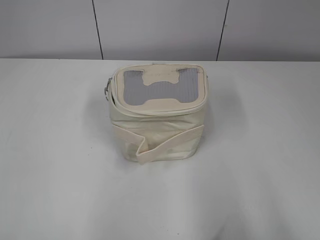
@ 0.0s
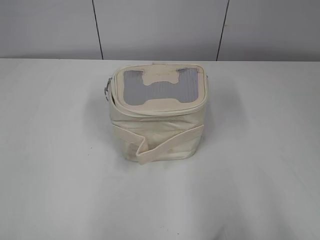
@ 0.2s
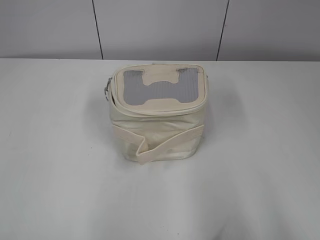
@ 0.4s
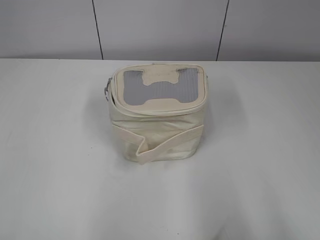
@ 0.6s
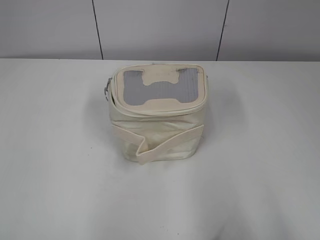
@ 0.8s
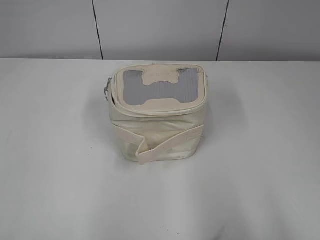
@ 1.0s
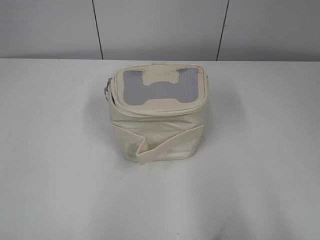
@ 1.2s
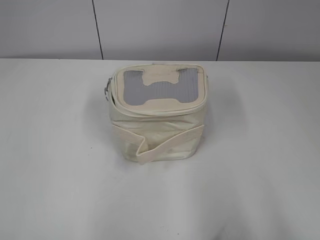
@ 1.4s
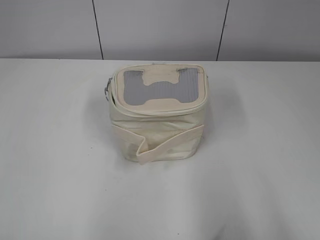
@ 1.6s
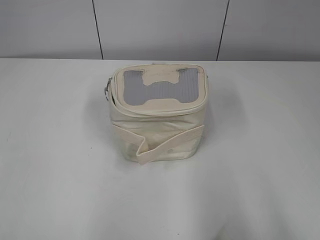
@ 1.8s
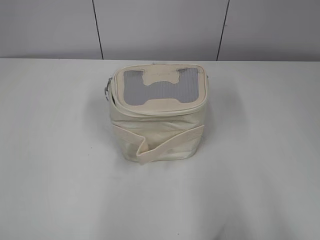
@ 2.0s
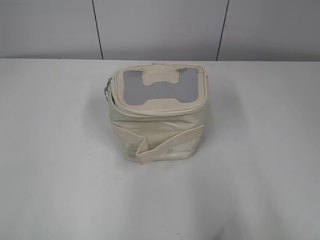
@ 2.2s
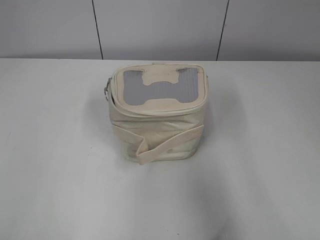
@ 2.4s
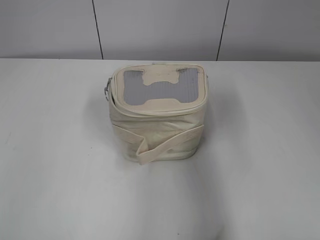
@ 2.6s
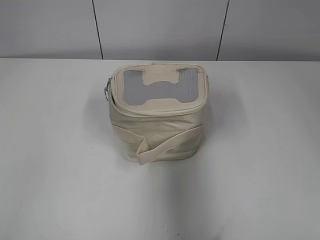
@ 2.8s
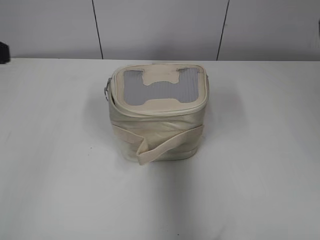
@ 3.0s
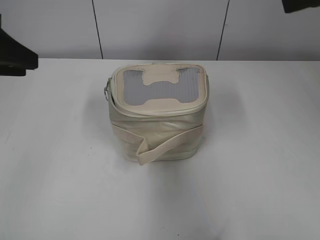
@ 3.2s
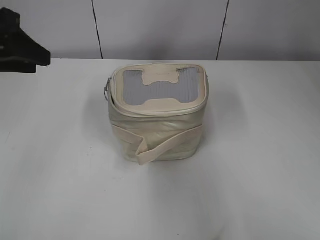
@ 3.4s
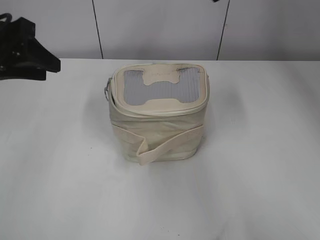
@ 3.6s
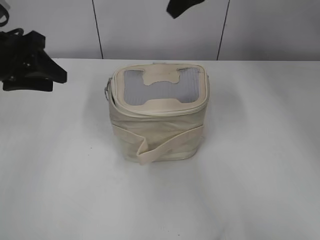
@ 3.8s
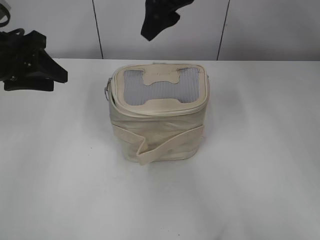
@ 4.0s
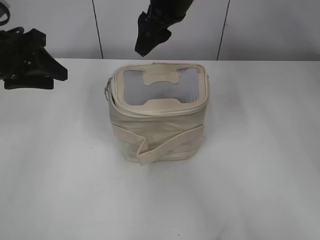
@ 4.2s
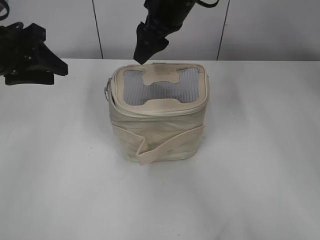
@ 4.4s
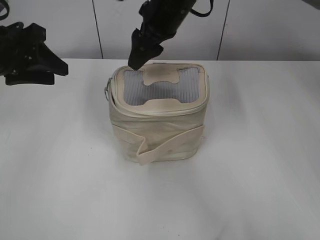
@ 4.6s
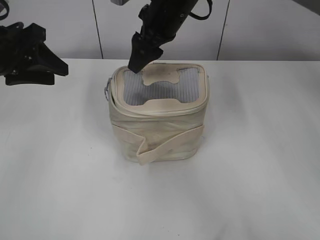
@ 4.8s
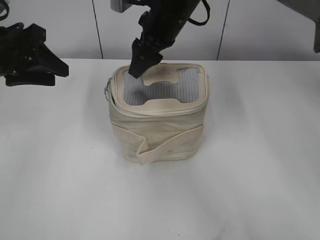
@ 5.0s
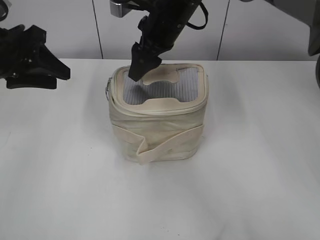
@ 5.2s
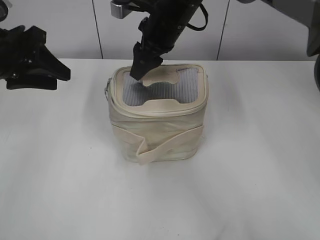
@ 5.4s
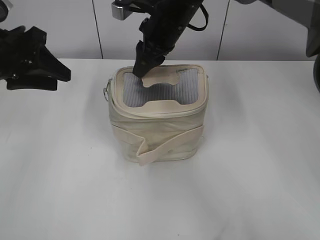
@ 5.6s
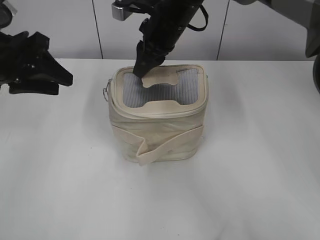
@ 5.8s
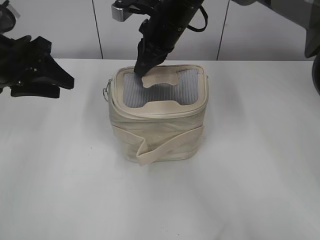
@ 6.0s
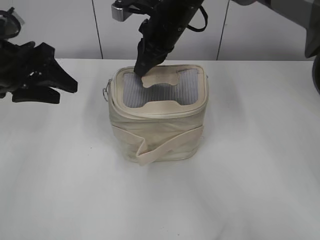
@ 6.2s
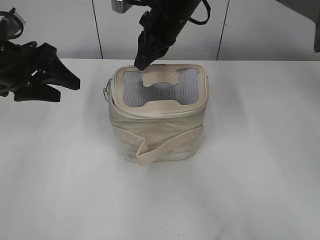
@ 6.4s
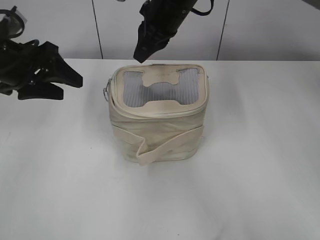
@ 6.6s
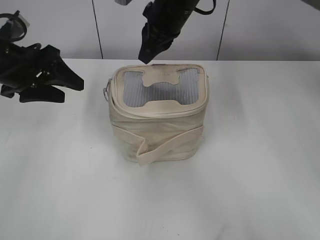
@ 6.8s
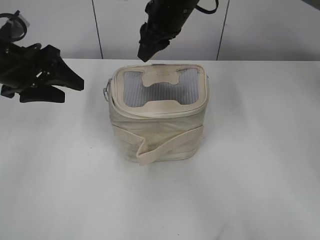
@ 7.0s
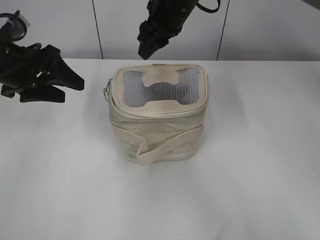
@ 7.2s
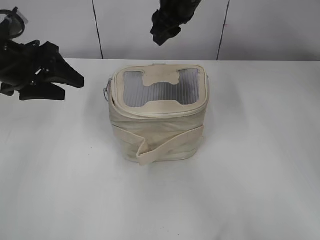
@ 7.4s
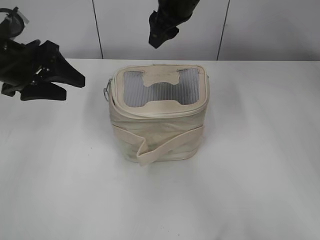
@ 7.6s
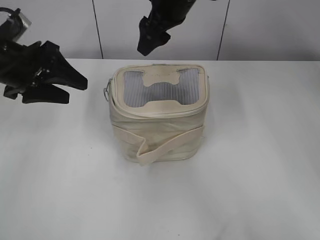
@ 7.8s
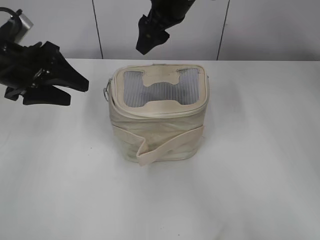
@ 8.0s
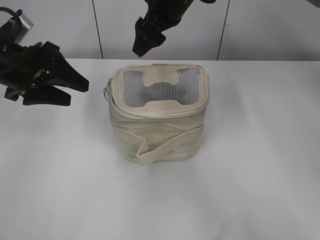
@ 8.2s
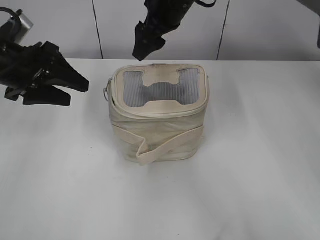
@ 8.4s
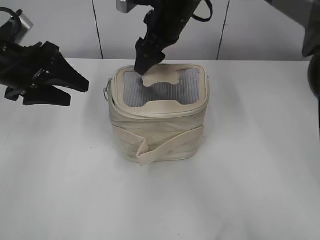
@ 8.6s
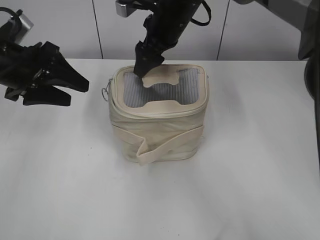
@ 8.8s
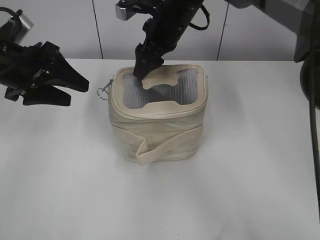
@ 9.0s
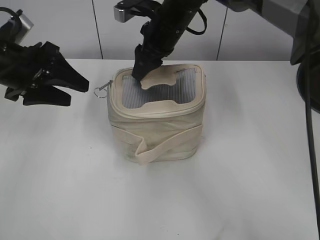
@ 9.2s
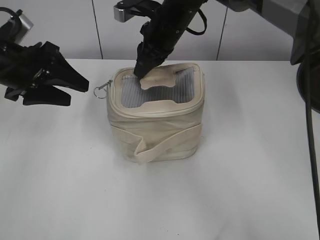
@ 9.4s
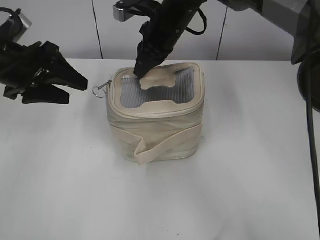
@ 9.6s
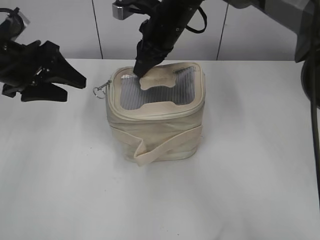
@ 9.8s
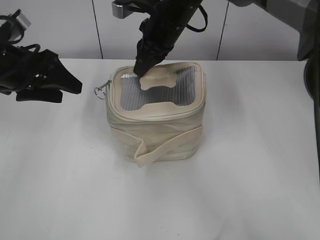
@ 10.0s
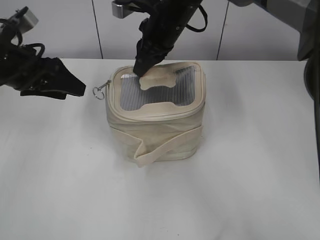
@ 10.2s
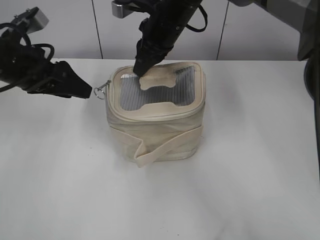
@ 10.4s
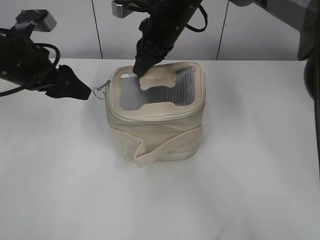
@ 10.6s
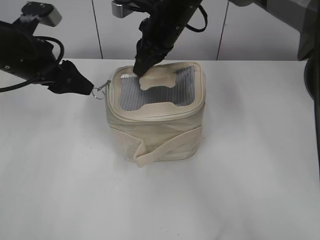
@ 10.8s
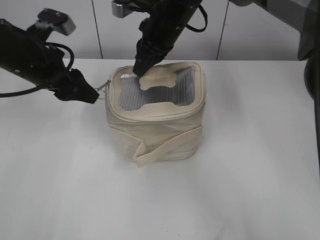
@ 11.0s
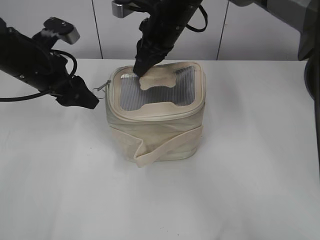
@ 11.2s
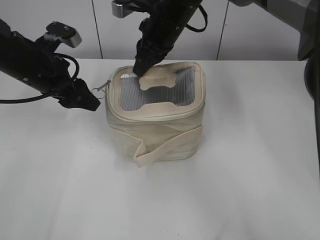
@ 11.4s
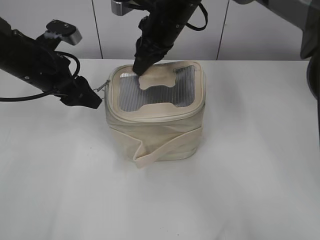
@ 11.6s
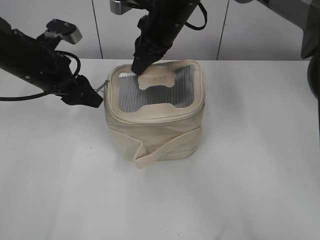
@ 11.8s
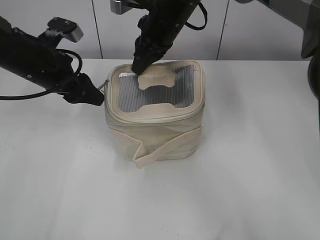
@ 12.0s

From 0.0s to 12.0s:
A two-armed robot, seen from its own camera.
From 1.6s to 3.0s: Both grippers move forward, some 20 cm.
From 3.0s to 4.4s: The left gripper is displaced forward and downward by approximately 15 cm; the right gripper moves to the left and forward, about 30 cm.
From 4.4s to 6.0s: The right gripper closes.
From 6.0s to 7.6s: The right gripper ends up about 5 cm from where it was, and opens.
From 7.6s to 9.0s: The right gripper travels downward by about 5 cm.
From 9.0s to 10.4s: The right gripper closes up.

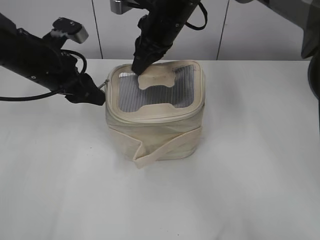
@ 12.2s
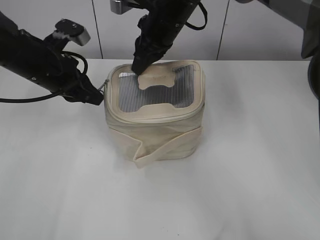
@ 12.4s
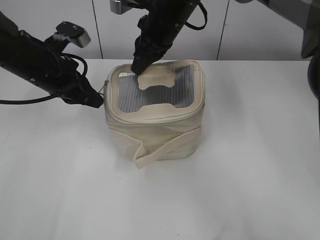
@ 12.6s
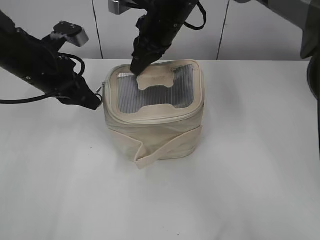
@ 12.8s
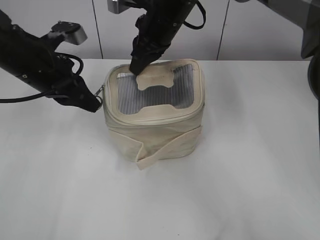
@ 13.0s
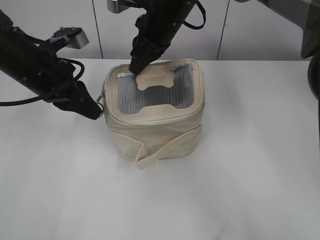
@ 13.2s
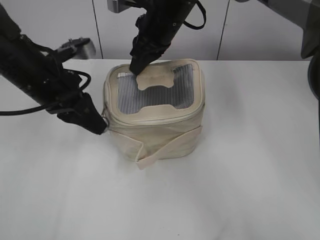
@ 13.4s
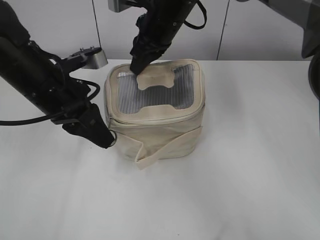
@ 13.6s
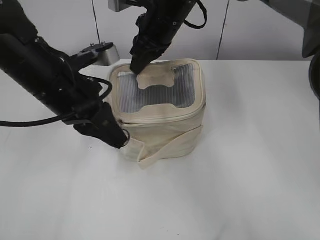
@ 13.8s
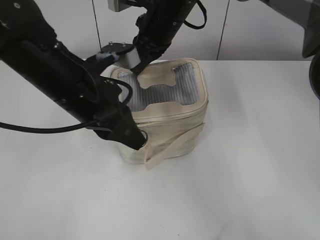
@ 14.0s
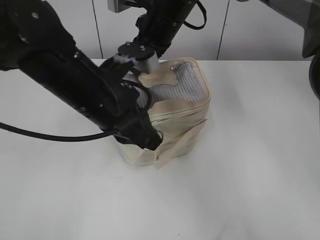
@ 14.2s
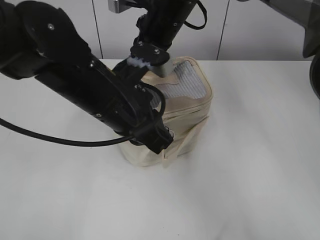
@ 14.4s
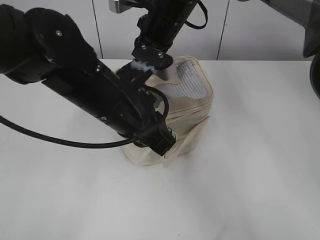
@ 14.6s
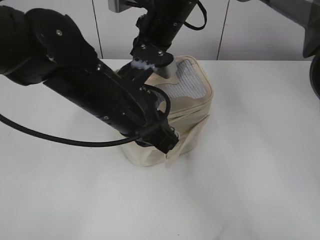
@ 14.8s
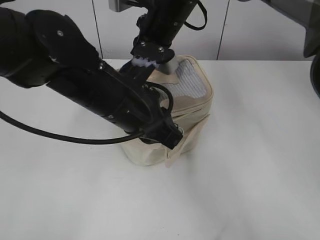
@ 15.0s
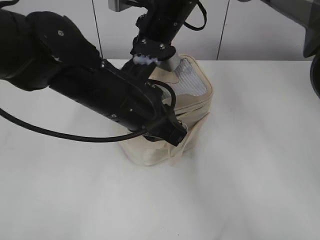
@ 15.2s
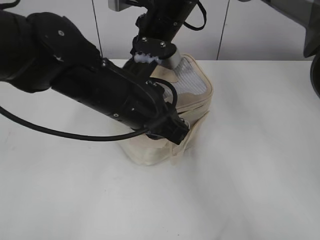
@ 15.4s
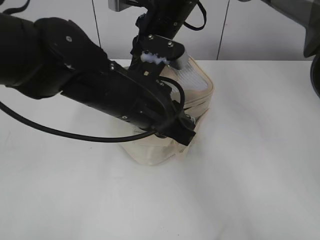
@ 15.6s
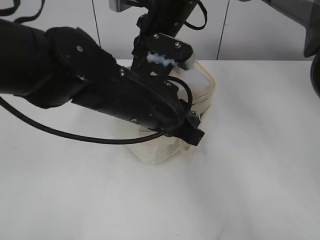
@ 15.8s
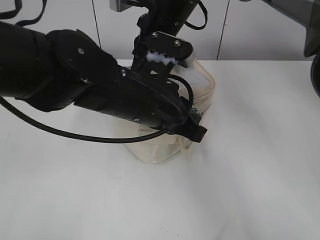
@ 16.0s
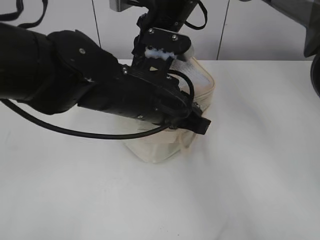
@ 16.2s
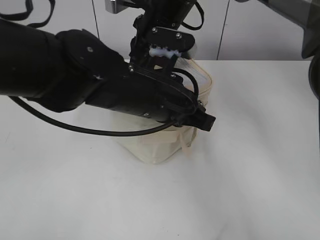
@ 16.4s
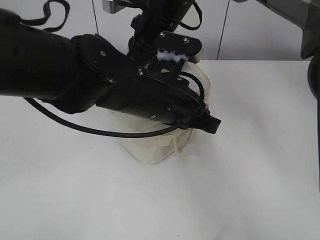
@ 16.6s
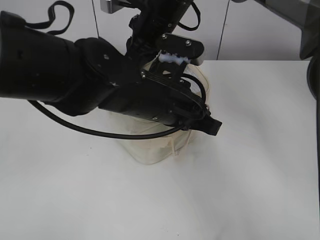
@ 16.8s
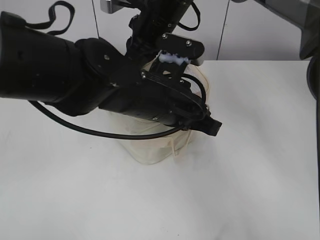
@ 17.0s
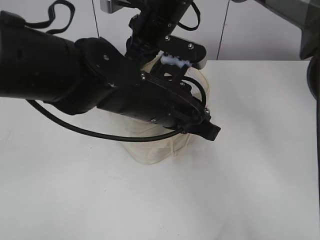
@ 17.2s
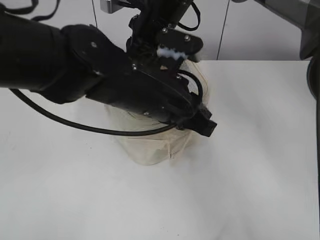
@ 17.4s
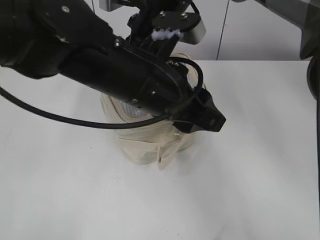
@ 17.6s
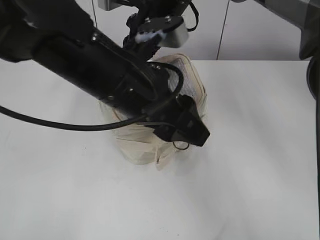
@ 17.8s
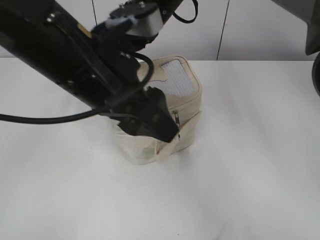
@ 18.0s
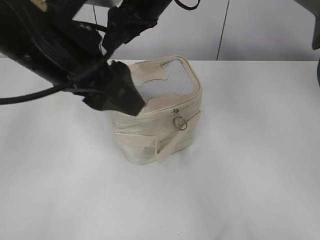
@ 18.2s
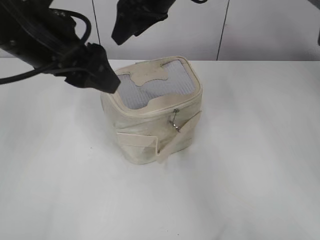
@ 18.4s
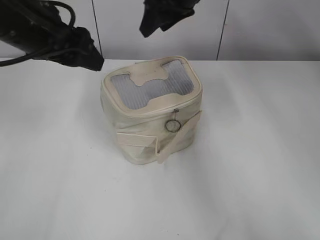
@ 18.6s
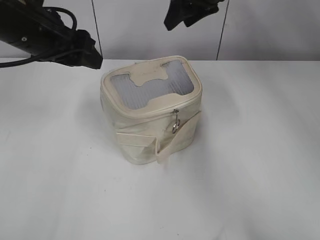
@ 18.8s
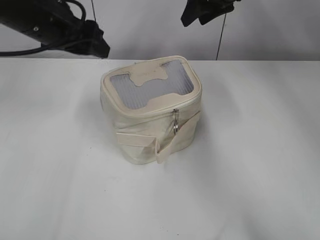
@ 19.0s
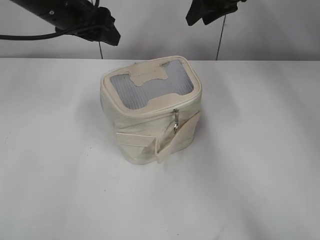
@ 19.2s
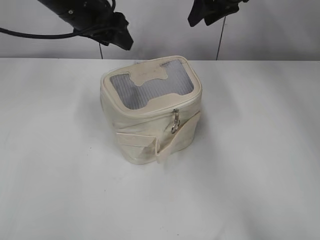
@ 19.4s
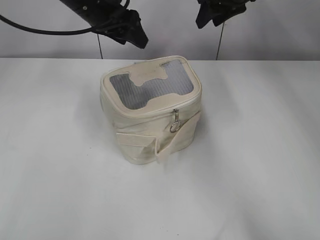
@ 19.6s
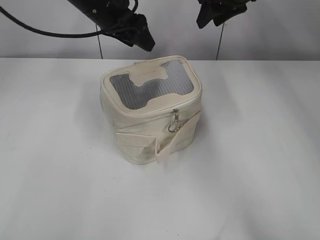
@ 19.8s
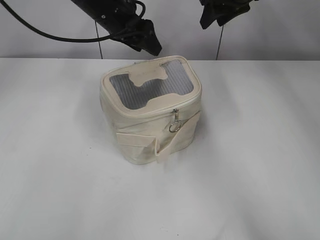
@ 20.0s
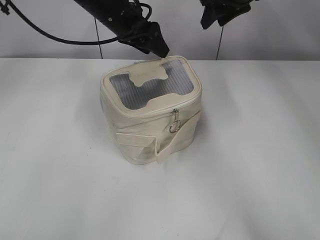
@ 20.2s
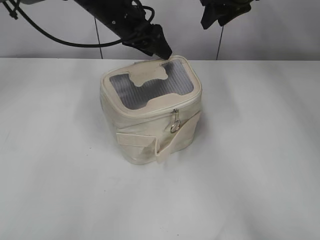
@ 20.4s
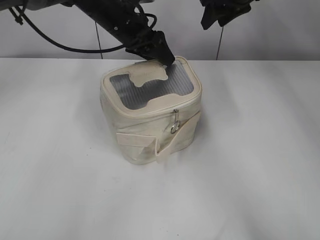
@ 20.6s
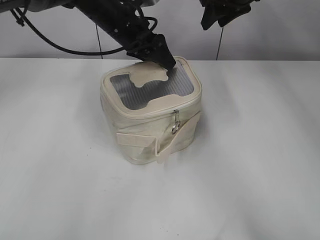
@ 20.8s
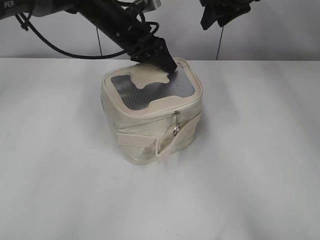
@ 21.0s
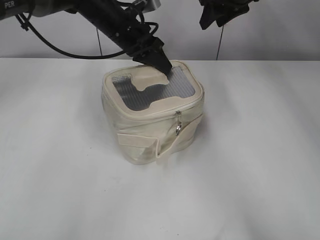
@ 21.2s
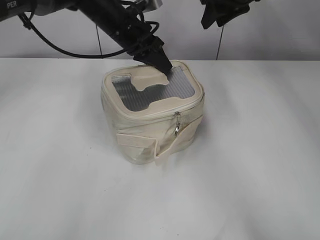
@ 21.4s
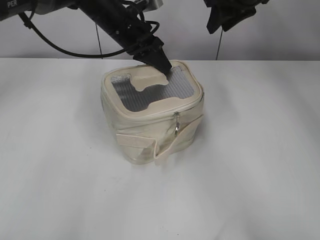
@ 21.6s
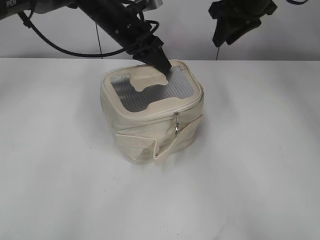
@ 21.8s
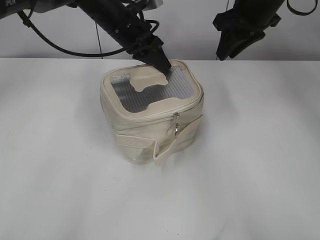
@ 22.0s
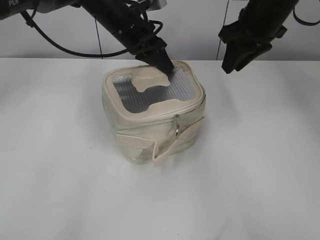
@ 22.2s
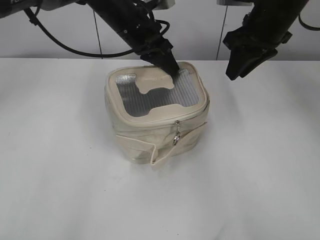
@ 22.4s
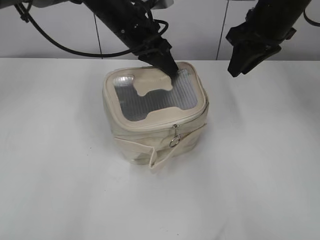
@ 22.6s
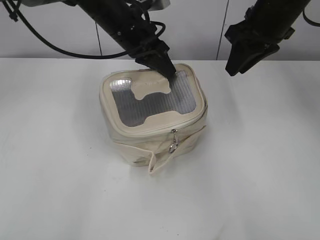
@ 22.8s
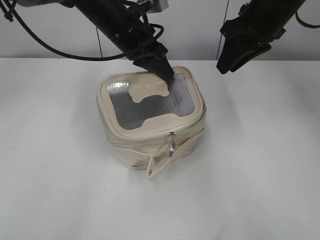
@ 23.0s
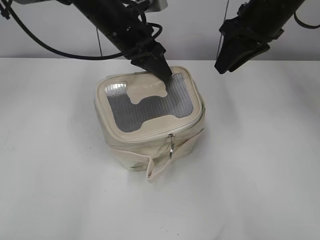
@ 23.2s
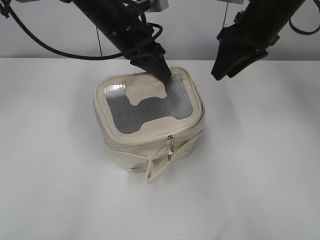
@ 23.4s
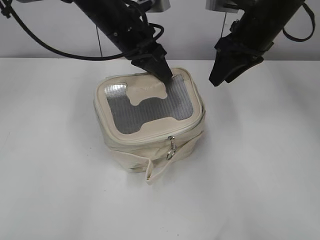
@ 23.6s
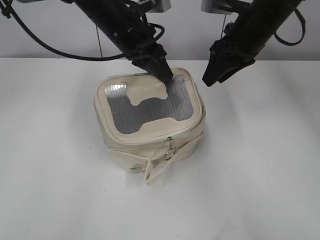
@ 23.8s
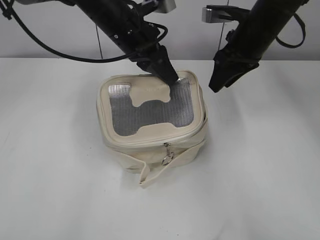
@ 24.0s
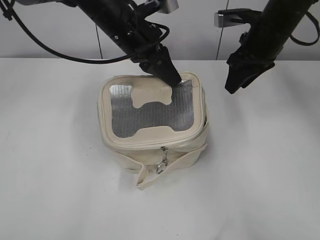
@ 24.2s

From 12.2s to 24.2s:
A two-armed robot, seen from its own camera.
Step, from 12.2s to 17.6s: Zip up the bag with your left hand.
Step, from 17.8s to 18.0s: Hold the bag with your right hand.
From 12.2s to 13.8s: The left gripper moves backward and to the right, about 10 cm, and closes.
From 13.8s to 15.2s: The left gripper goes about 10 cm to the right.
From 15.2s to 16.6s: The grippers make only small movements.
From 16.6s to 18.2s: The right gripper opens up; the left gripper is displaced to the left and upward by roughly 15 cm, and opens.
From 18.2s to 19.8s: The left gripper shifts approximately 20 cm forward. Meanwhile the right gripper travels to the right and forward by some 15 cm.
From 19.8s to 21.2s: The left gripper goes approximately 5 cm downward, and closes its fingers.
From 21.2s to 22.6s: The right gripper shifts roughly 10 cm backward.
From 22.6s to 24.2s: The right gripper changes place by about 5 cm.
